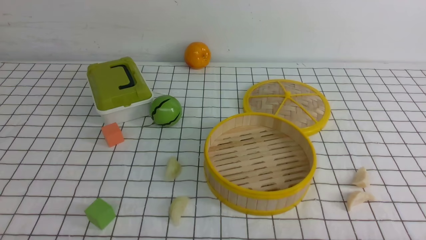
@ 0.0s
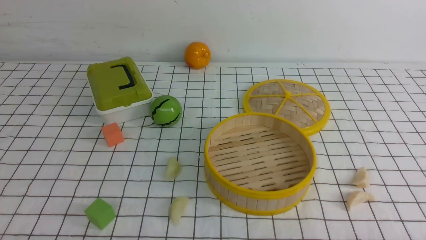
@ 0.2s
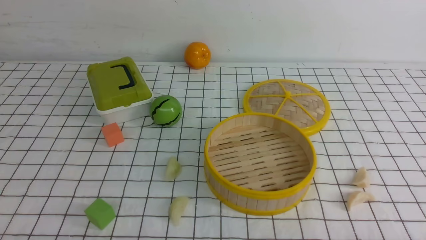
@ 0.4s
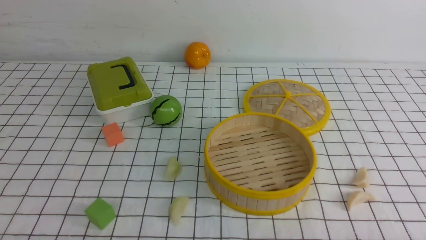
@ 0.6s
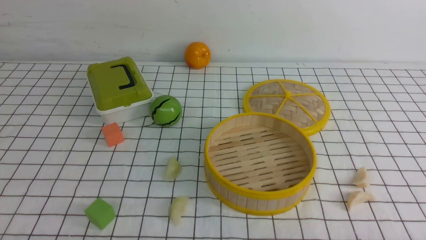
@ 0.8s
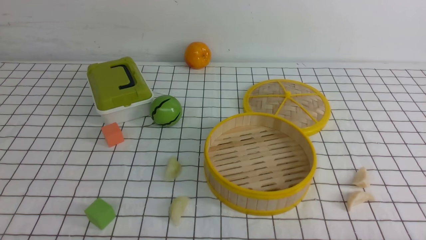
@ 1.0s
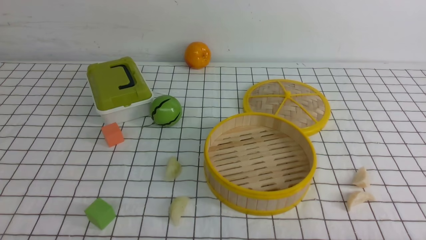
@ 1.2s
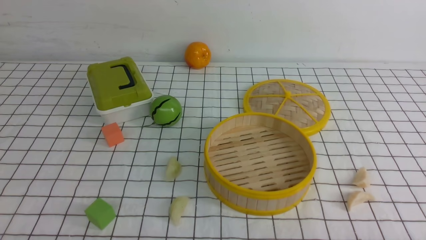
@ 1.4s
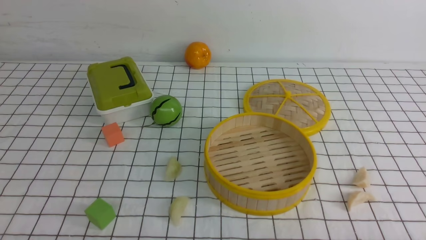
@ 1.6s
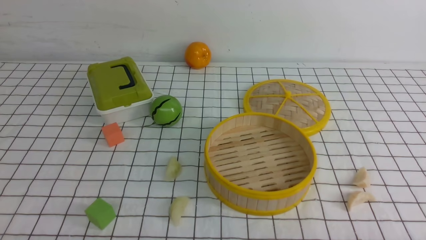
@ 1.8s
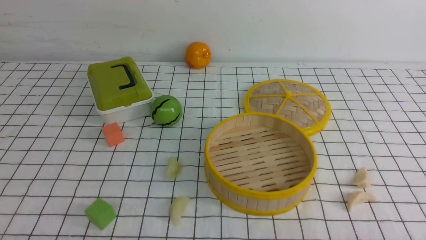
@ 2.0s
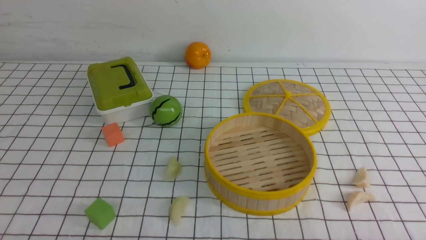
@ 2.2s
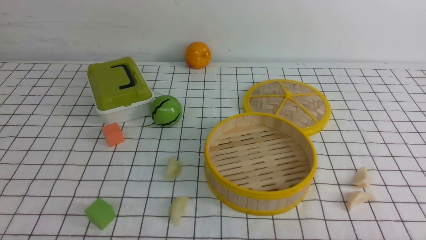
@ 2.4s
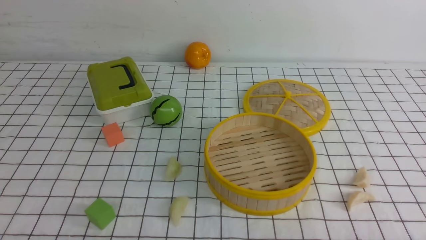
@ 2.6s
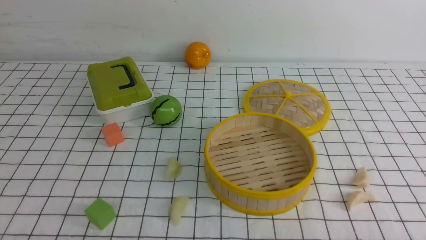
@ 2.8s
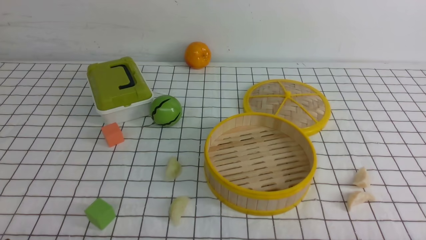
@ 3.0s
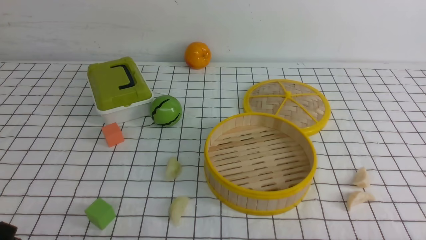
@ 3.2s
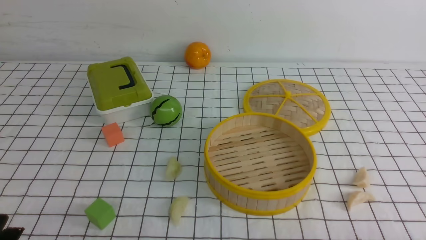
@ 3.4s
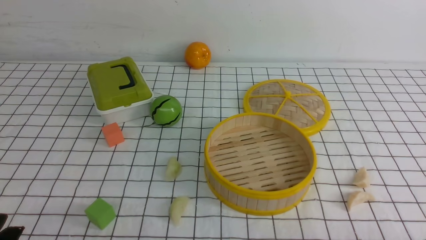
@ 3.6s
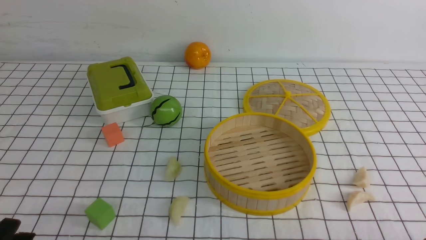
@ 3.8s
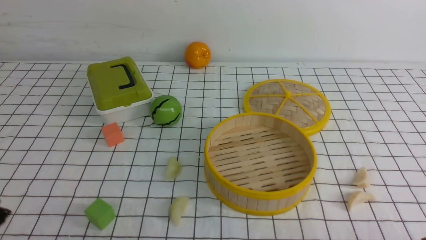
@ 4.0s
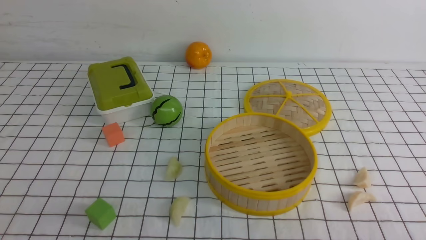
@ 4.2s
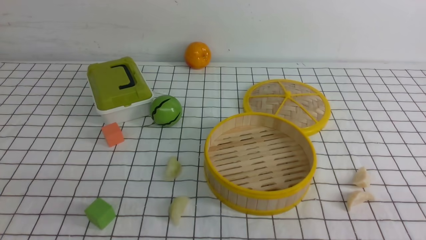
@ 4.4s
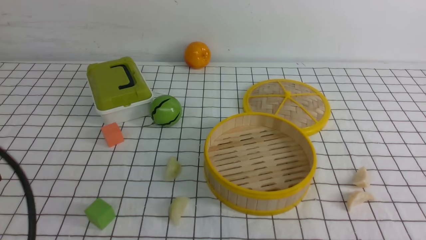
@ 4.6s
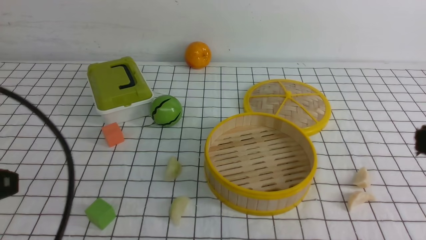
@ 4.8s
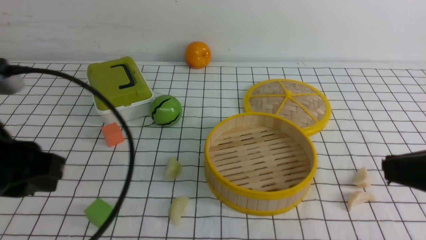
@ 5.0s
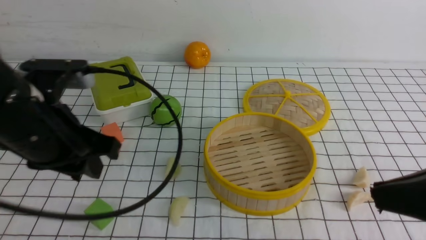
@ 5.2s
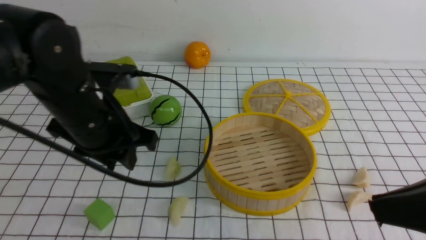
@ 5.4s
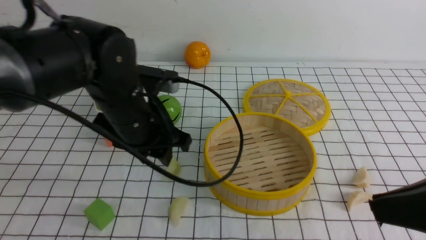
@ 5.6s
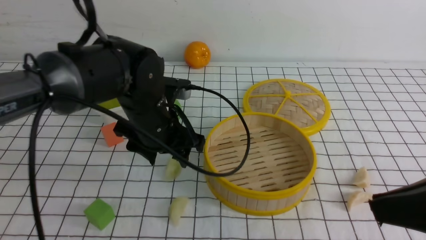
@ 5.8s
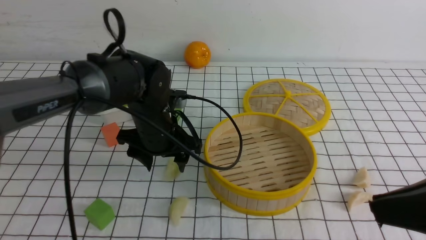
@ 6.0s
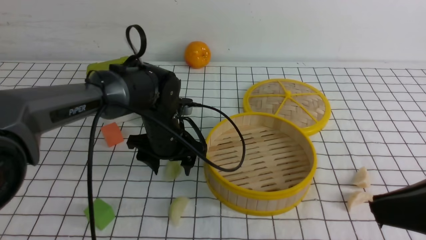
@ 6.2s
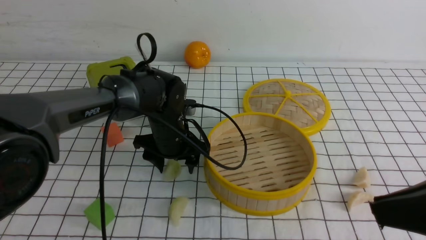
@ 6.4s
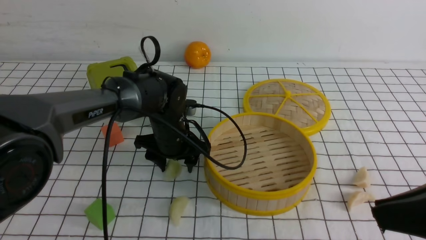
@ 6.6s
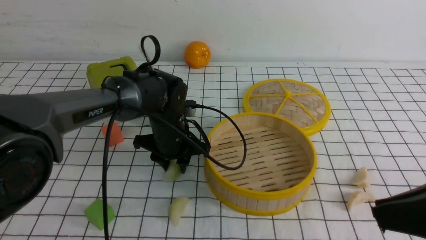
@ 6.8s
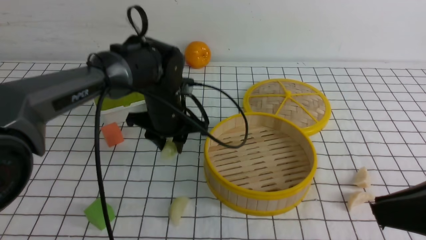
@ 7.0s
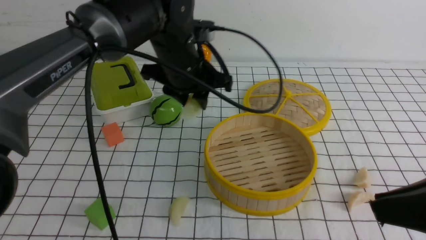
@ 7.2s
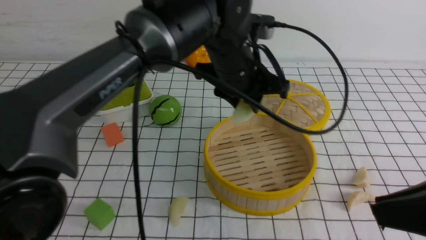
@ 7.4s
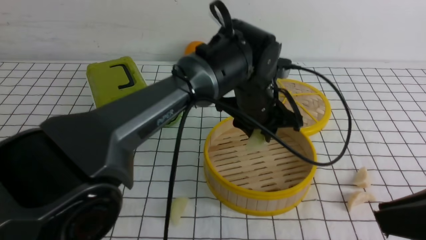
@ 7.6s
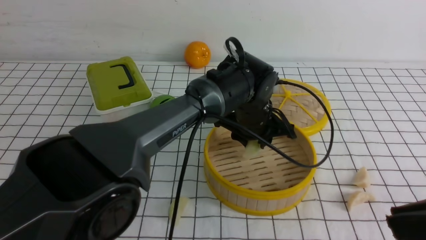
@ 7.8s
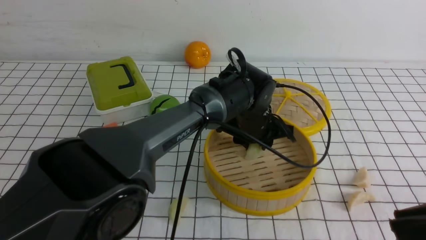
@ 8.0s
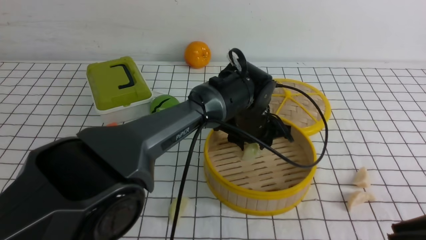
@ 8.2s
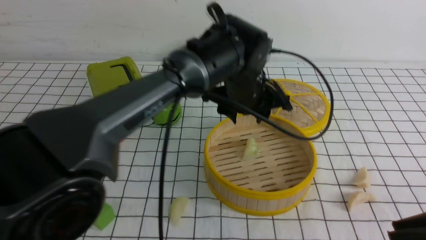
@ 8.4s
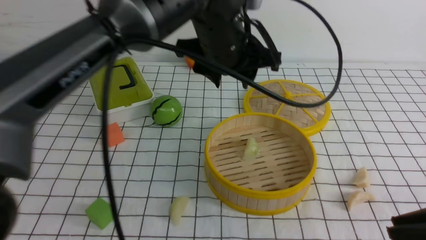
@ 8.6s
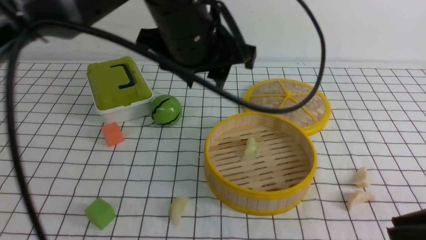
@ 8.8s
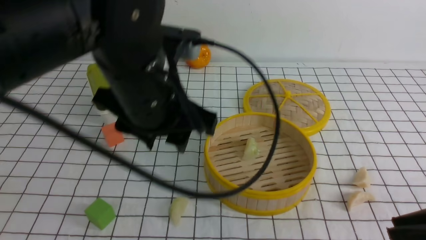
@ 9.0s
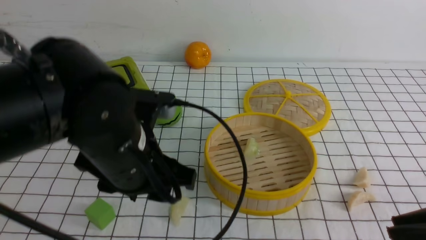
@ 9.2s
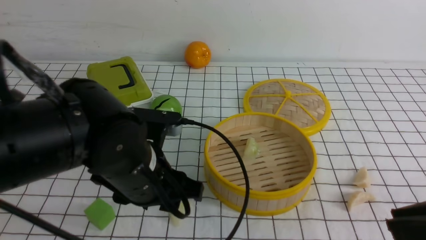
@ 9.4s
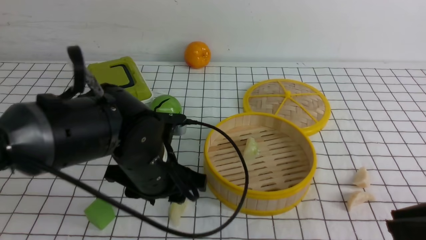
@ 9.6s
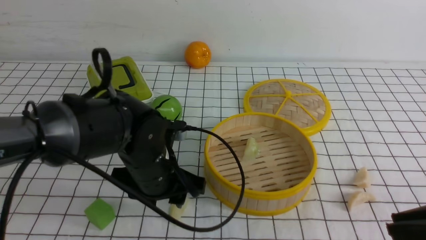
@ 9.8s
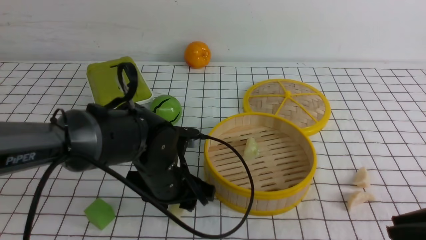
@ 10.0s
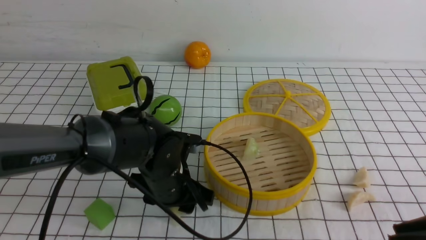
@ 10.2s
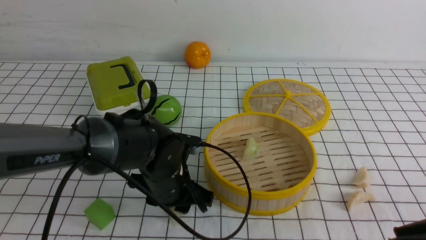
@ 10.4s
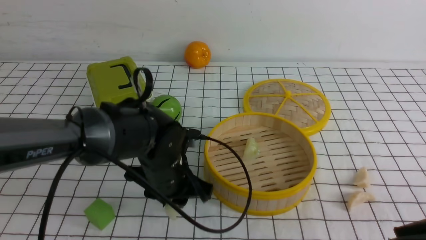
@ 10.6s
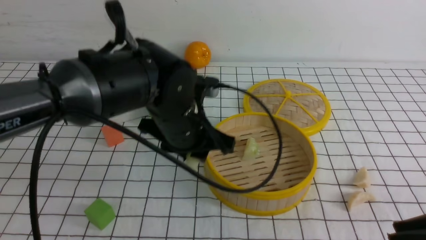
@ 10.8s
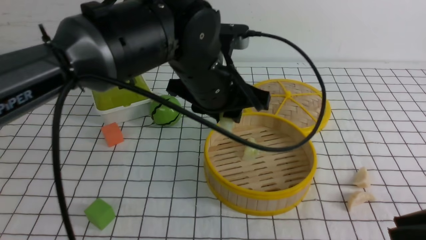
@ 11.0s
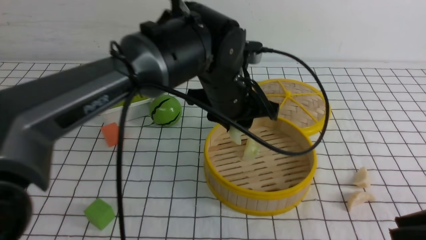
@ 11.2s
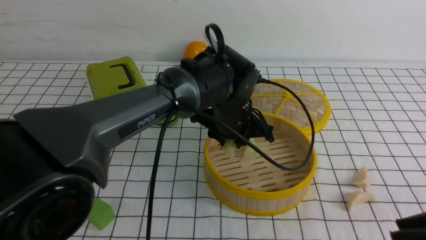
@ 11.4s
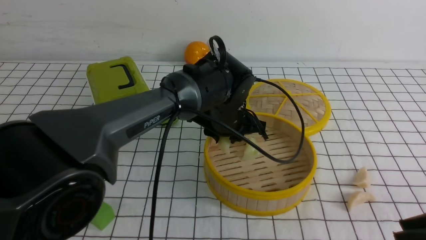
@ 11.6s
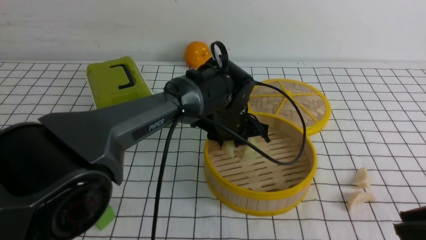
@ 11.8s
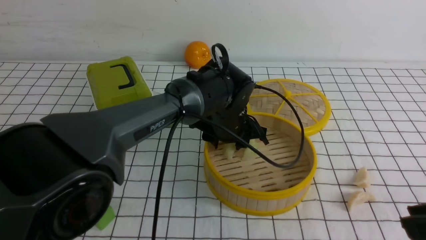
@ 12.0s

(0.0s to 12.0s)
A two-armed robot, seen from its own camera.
Task of the whole recording: put the dumplings into the steamer on the table with the white tablecloth.
Step, 0.0s - 7.2s: use the left arm to grab a dumpling.
Step, 7.4s - 8.6s: use the left arm to put the dumpling into the steamer.
Step, 8.8s - 10.8s: use the left arm to grab a dumpling.
4.4s - 6.0s: The right gripper heads upward and forward, covering roughly 10 cm, while the left gripper heads forward and to the right, covering approximately 35 cm, and opens.
6.0s - 7.6s: The left gripper moves to the right and upward, some 15 cm, and closes.
7.6s - 9.0s: The left gripper is displaced backward, to the left and upward by about 15 cm.
9.0s - 10.4s: The left gripper is displaced downward by about 20 cm.
10.4s - 12.0s: The left gripper goes roughly 15 cm forward and to the right, and travels upward and back again, about 15 cm each way.

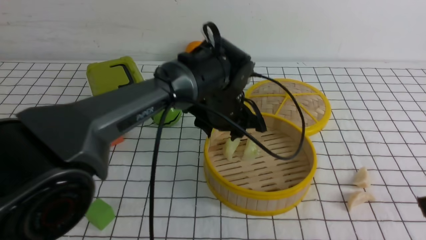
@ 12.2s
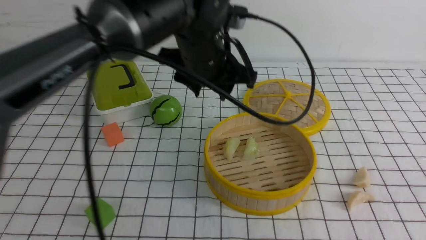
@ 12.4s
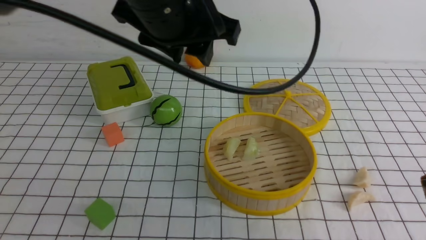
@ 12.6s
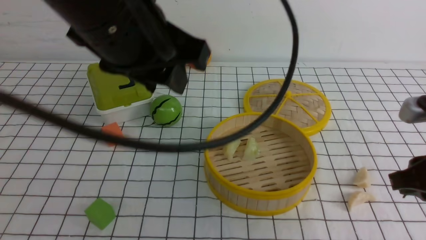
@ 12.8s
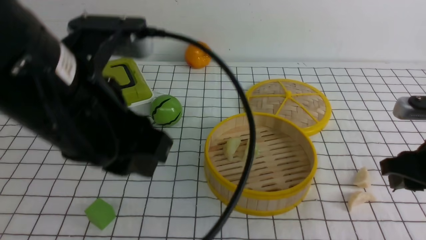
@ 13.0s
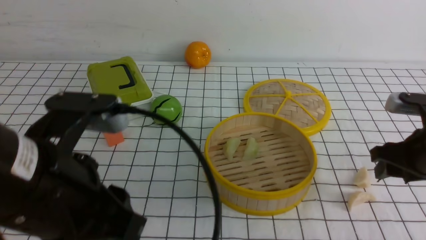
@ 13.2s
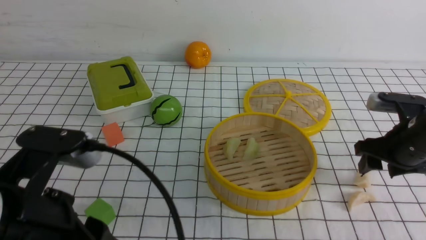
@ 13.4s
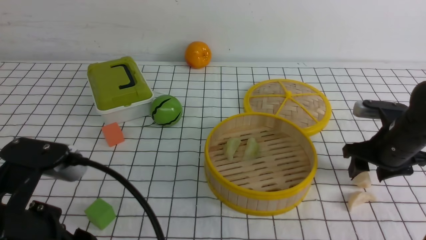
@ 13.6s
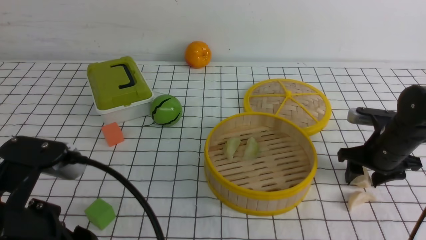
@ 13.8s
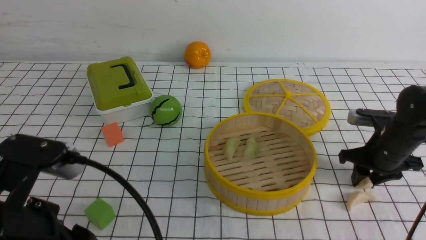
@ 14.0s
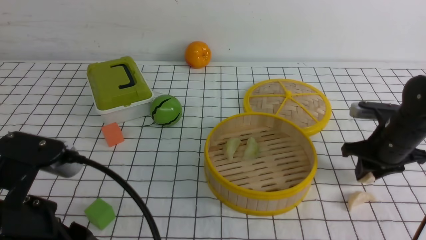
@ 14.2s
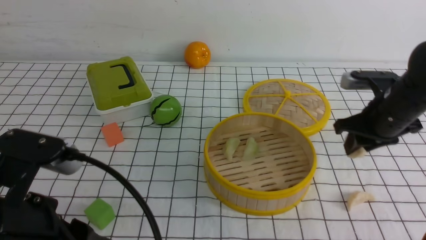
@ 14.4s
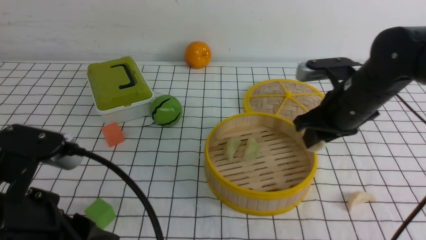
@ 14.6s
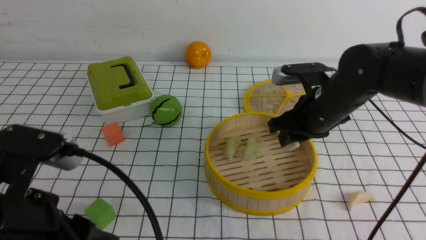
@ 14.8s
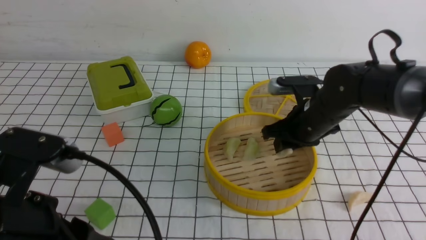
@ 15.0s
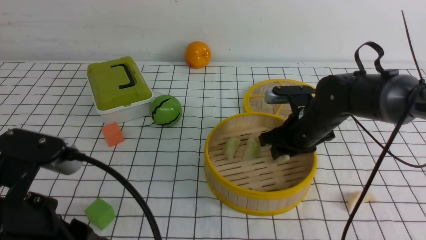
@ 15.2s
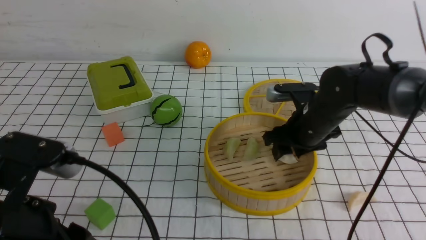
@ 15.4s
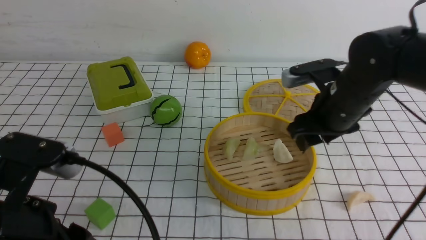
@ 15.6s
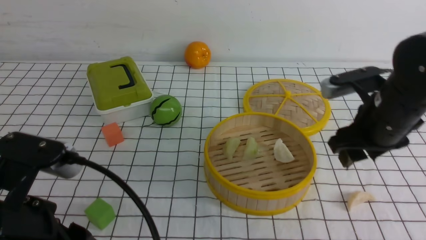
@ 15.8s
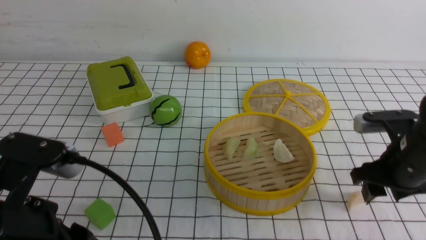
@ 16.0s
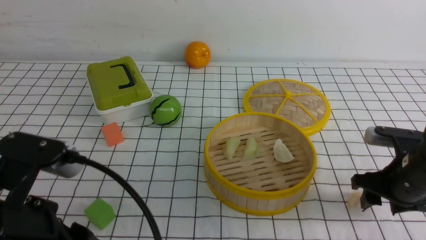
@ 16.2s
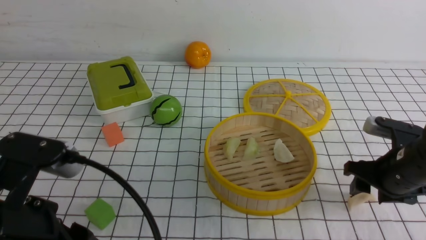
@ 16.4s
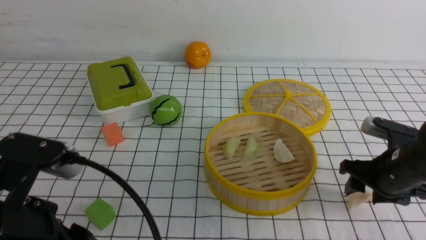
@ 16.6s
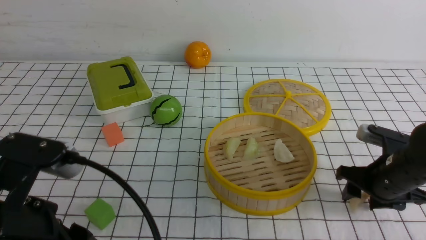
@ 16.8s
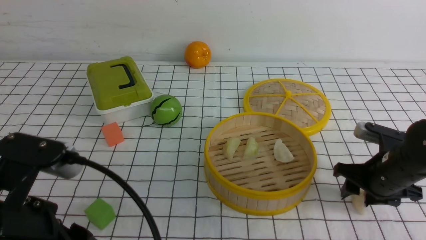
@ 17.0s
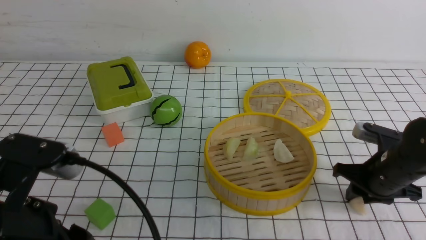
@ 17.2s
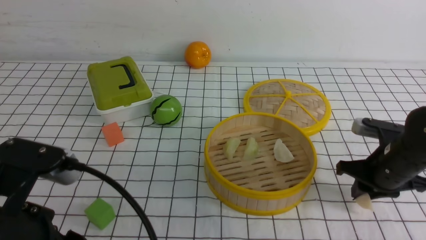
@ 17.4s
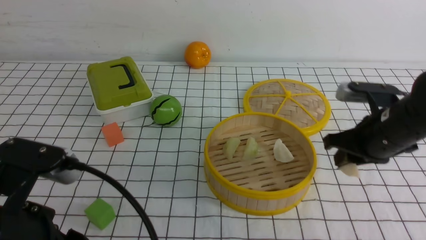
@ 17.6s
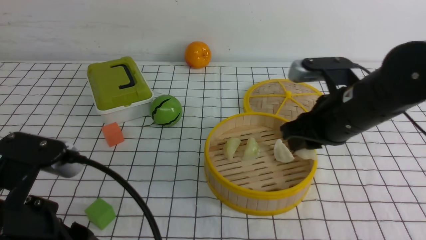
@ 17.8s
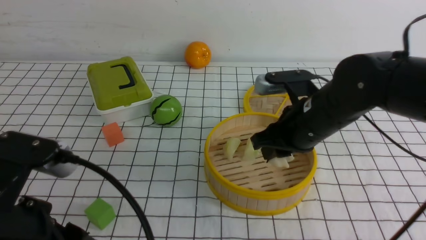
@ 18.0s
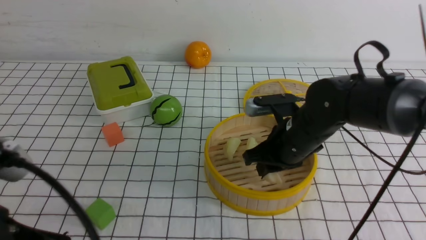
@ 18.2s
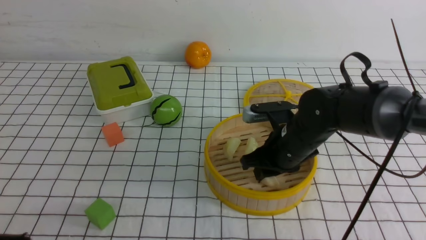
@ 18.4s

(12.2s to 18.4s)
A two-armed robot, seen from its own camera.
Task of the whole recording: put the dumplings into the steamer on the table with the white tablecloth.
Step, 12.8s - 14.4s: use the right arm to grab a dumpling.
Step, 14.6s - 15.8s: use the right arm to put the dumpling into the steamer.
Step, 16.0s - 17.4s: use the right arm to grab a dumpling.
12.2s - 13.8s: The left gripper goes approximately 35 cm backward and to the left. The right gripper heads forward and downward, covering about 30 cm, and opens its fingers.
13.8s - 15.4s: The right gripper is displaced to the left by about 15 cm.
15.4s - 16.8s: The right gripper is displaced to the right and backward by approximately 15 cm.
16.8s - 18.4s: The right gripper is displaced to the left by about 15 cm, and closes up, while the left gripper ends up about 5 cm from where it was.
